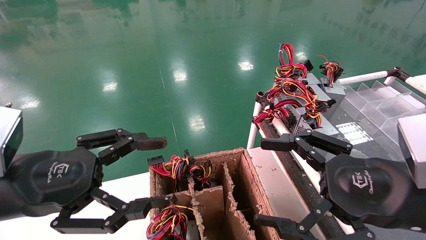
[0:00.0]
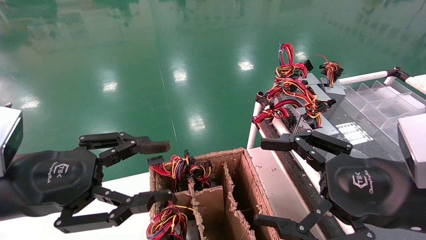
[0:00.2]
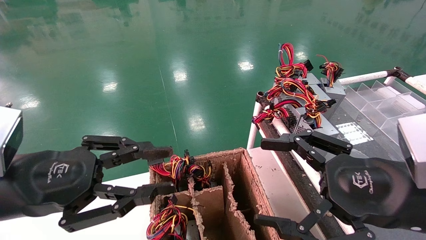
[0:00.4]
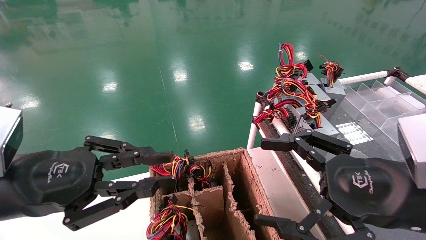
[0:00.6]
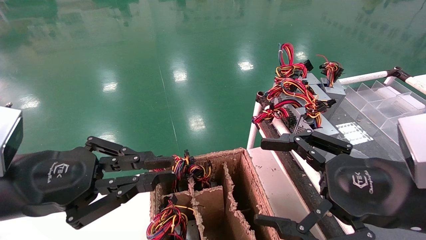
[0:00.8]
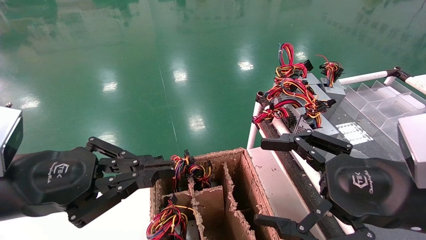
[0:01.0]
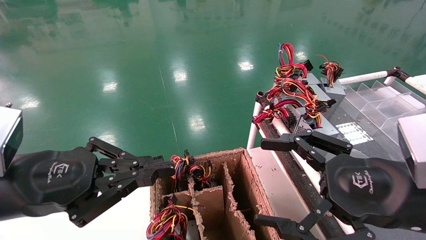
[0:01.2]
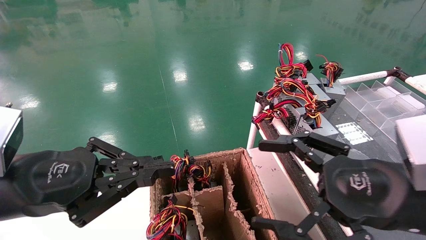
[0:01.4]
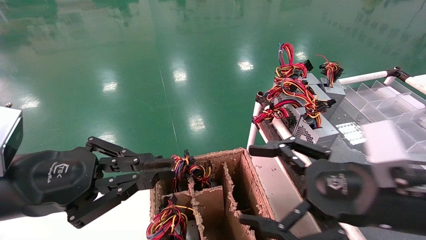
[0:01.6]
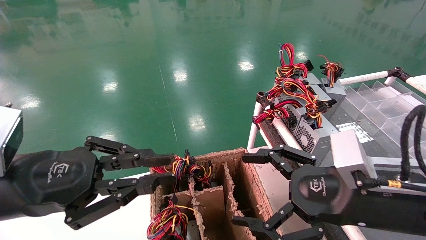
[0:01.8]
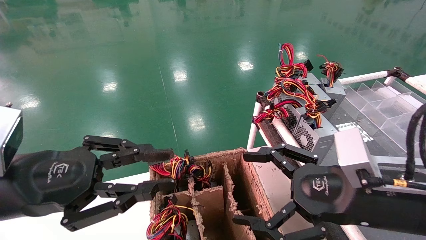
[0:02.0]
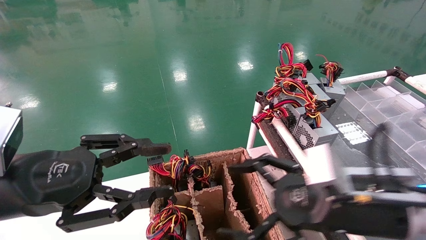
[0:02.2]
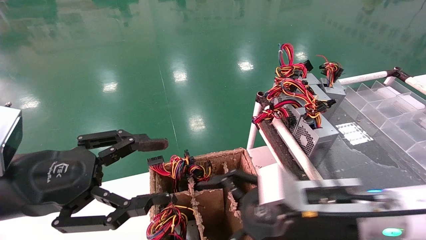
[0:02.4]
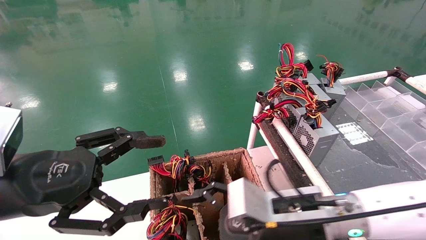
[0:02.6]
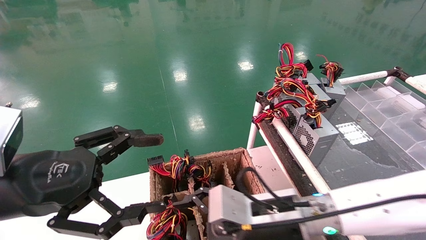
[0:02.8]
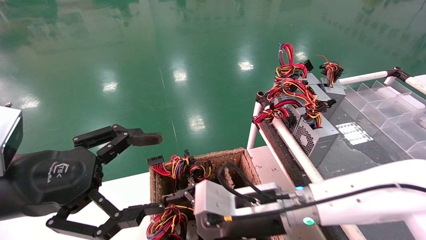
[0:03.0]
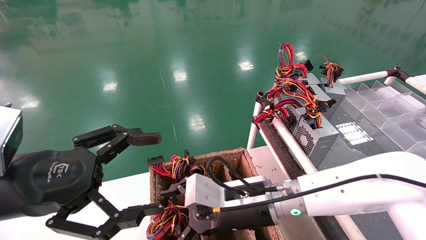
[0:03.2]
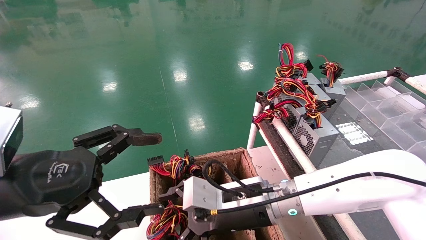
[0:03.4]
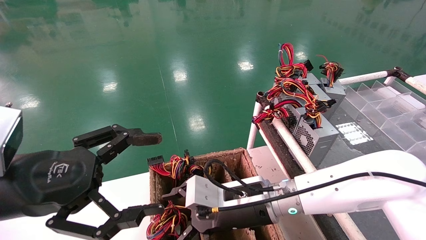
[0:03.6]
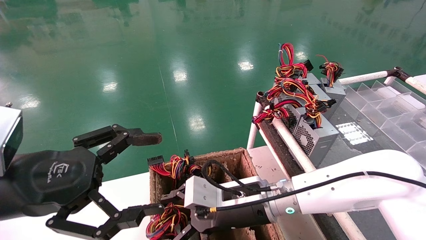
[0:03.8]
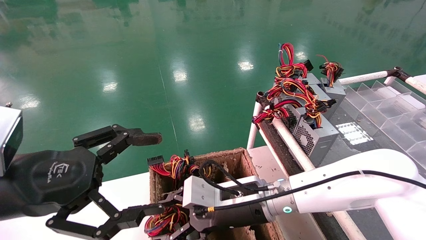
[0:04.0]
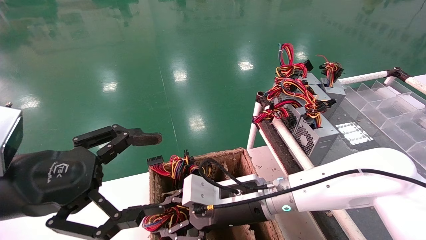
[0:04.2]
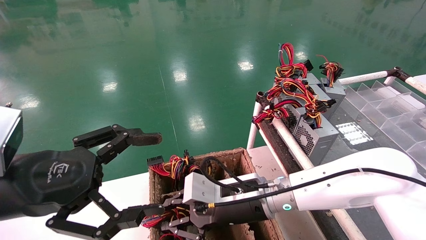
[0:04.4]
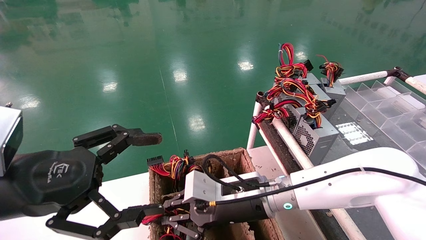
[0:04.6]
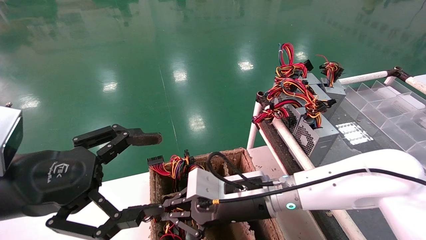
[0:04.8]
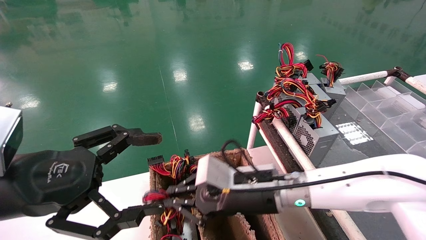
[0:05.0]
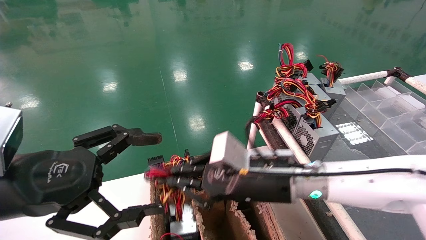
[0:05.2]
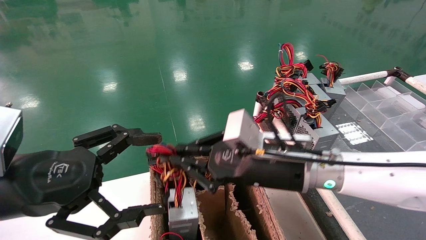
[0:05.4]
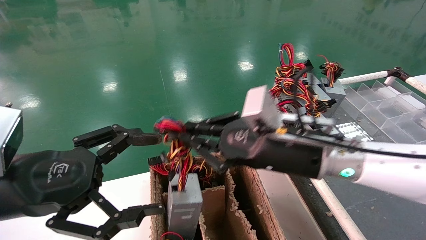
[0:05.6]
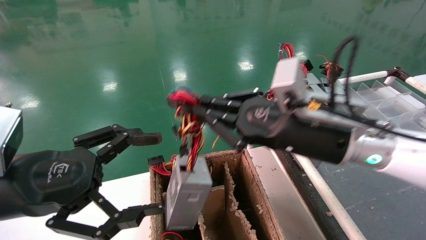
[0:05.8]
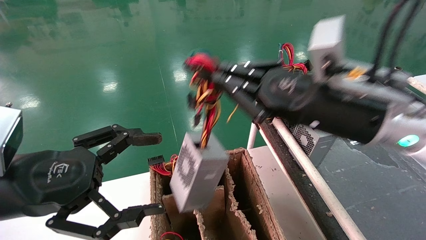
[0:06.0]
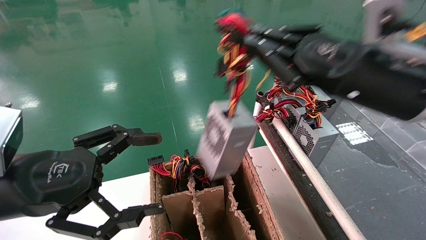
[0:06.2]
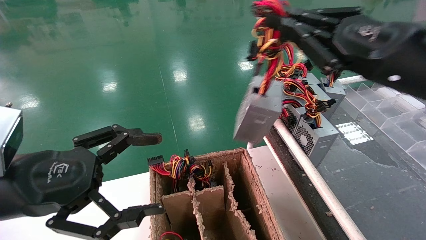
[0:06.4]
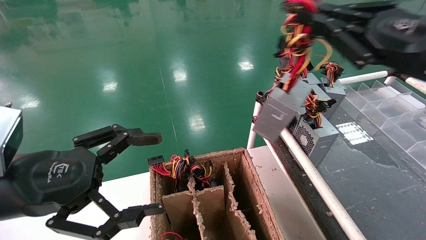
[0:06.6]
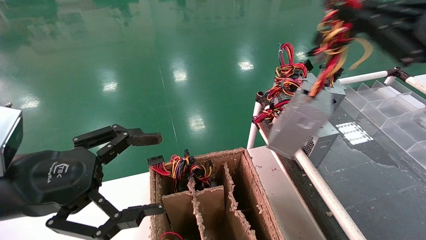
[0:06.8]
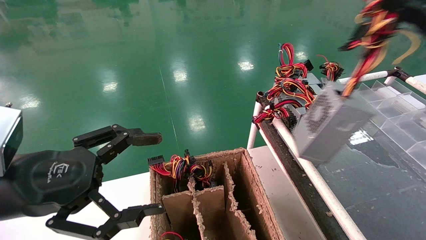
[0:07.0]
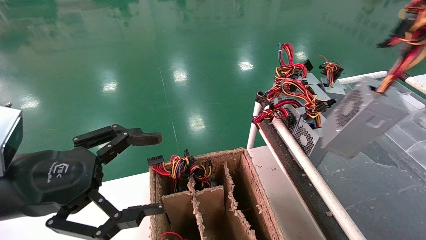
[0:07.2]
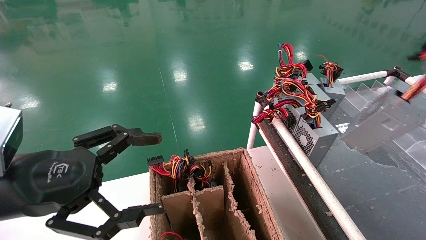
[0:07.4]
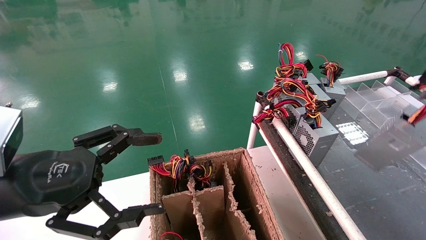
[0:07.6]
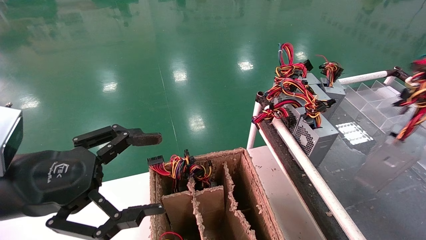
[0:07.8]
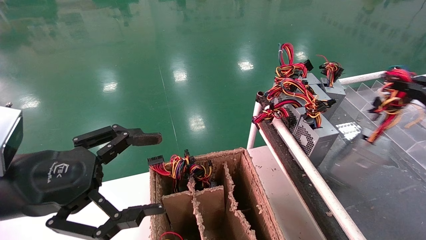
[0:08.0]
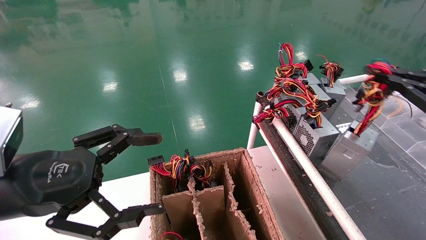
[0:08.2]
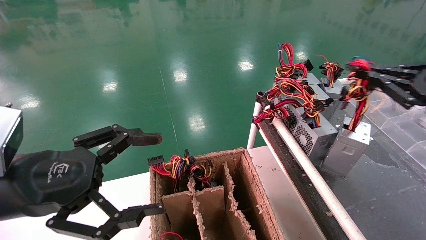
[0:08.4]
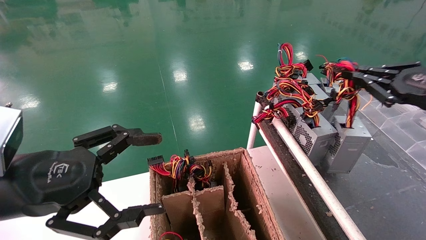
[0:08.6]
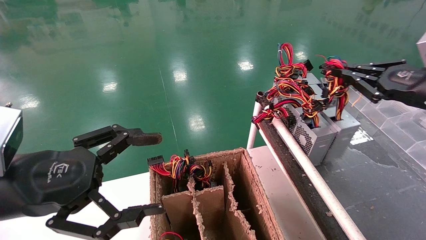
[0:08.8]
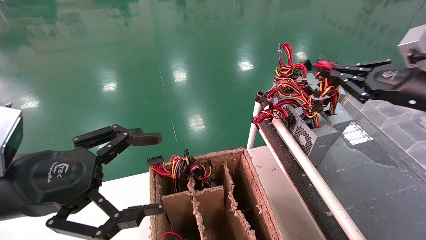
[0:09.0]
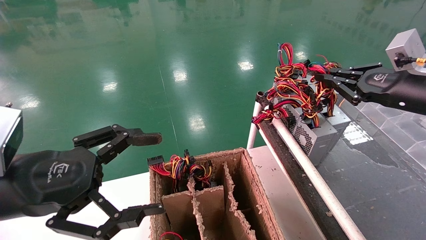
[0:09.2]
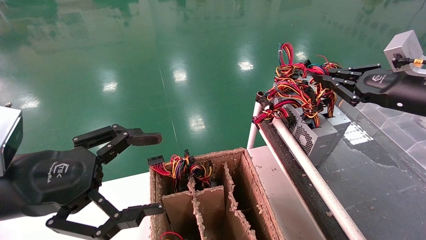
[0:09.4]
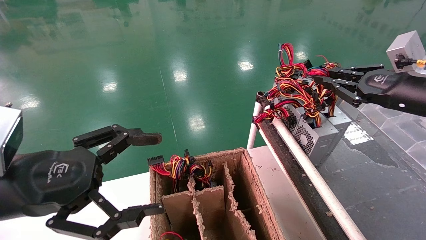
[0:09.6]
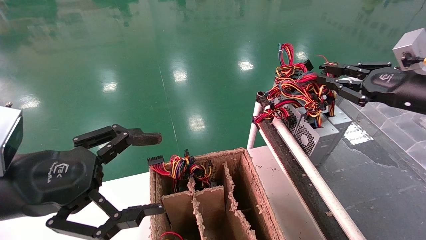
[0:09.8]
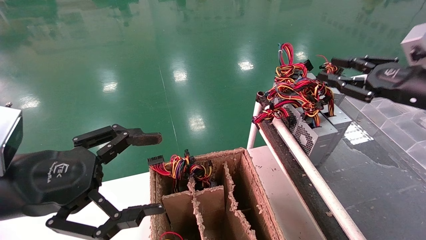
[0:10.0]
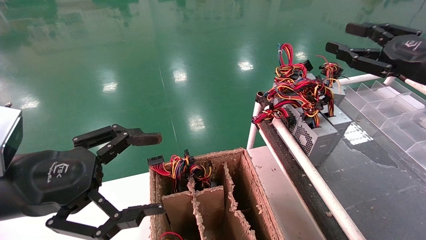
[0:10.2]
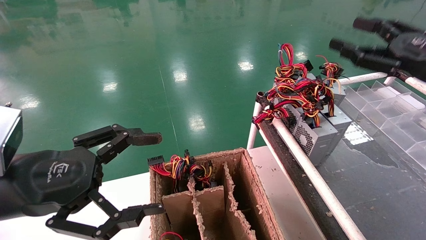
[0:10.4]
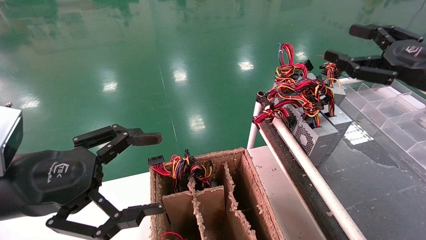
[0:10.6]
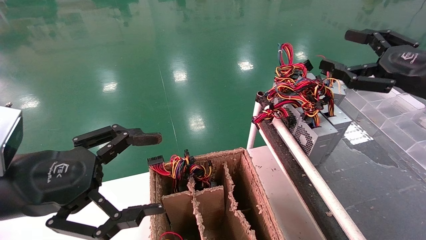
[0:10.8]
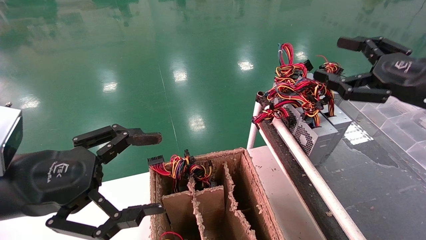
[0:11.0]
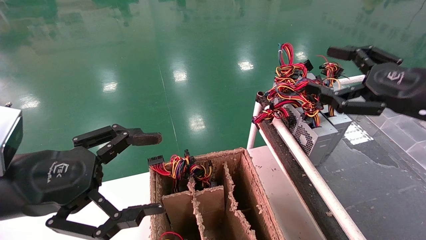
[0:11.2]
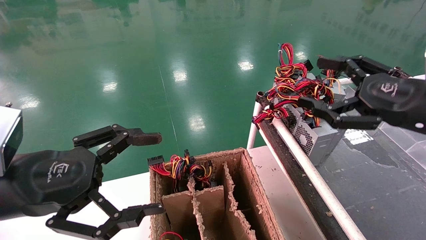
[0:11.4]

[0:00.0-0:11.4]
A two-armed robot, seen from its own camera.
Step, 1.0 to 4.8 s: Grab and lift the power supply from the large box.
Step, 5.0 to 9.4 s: Place the power supply on the operating table.
0.0 to 1.4 s: The left gripper closes.
1.4 to 2.8 s: The left gripper opens; the right gripper heads to the left, downward and forward, covering some 20 cm.
2.8 to 4.2 s: The right gripper shifts by some 5 cm, and closes up.
4.2 to 5.6 s: The right gripper goes roughly 15 cm upward and to the right, and closes.
5.6 to 7.2 s: The right gripper is displaced to the right by roughly 30 cm.
7.2 to 8.6 s: The right gripper shifts roughly 15 cm forward and downward.
8.6 to 10.0 s: The grippers stay close to where they were, moving slightly.
10.0 to 11.4 s: The right gripper travels backward and to the left by some 10 cm, and opens.

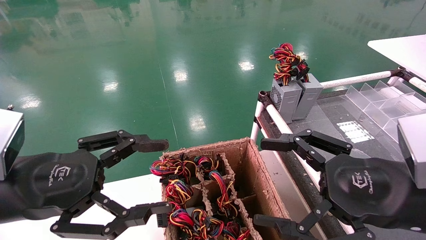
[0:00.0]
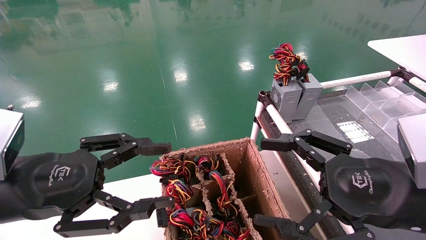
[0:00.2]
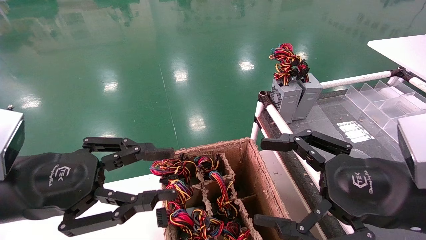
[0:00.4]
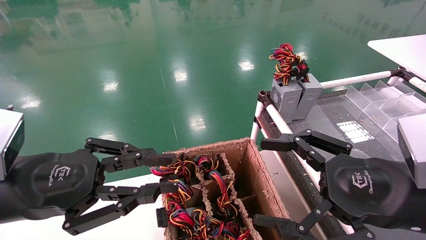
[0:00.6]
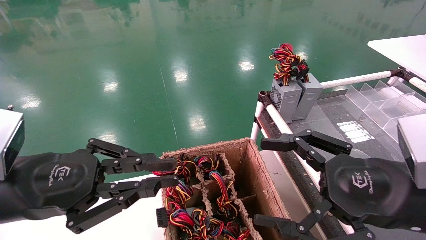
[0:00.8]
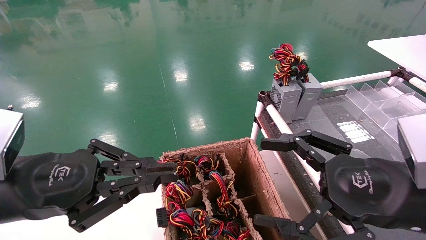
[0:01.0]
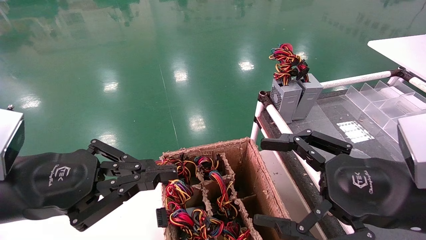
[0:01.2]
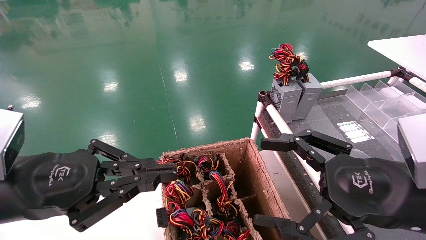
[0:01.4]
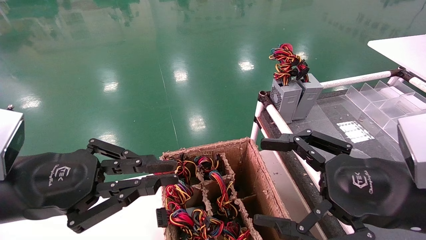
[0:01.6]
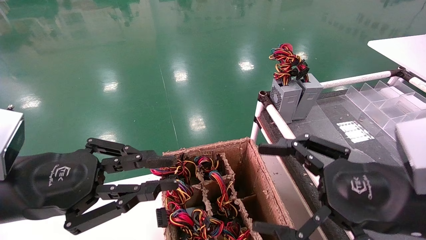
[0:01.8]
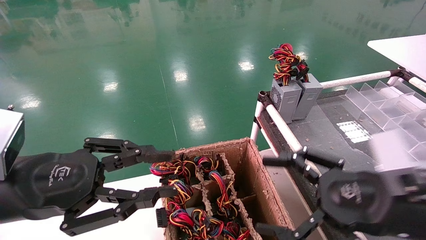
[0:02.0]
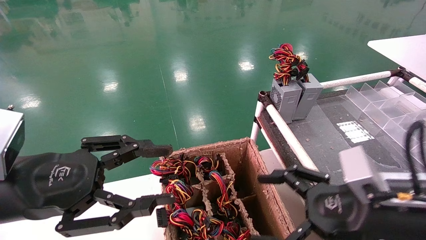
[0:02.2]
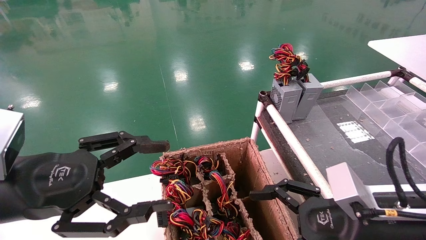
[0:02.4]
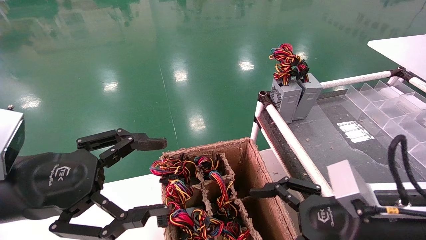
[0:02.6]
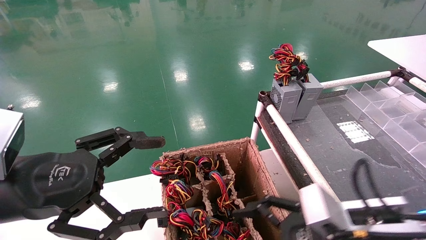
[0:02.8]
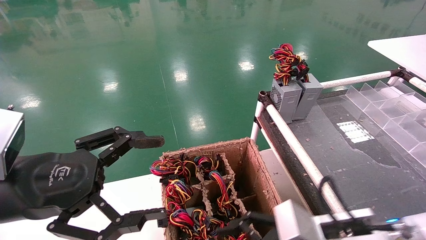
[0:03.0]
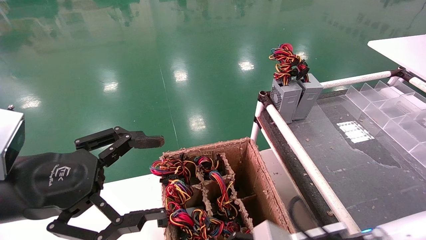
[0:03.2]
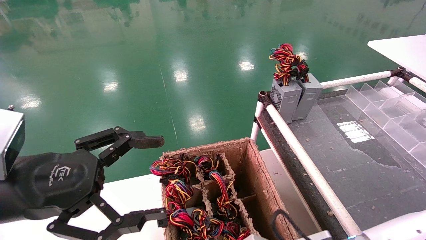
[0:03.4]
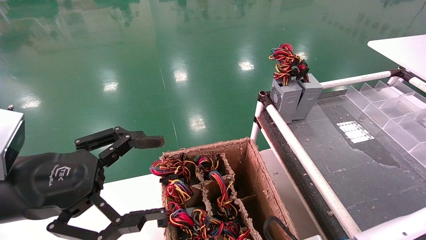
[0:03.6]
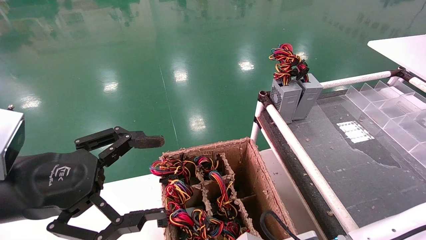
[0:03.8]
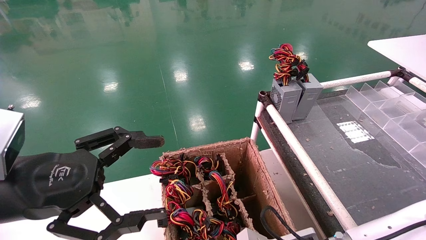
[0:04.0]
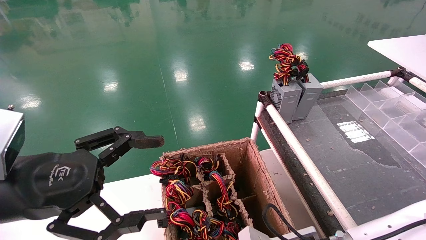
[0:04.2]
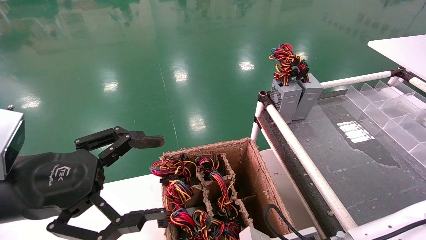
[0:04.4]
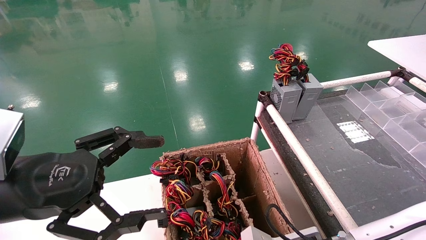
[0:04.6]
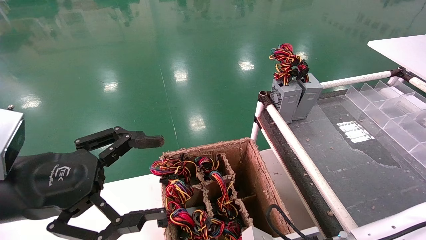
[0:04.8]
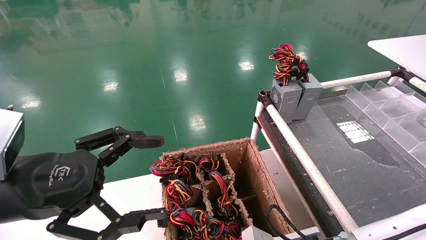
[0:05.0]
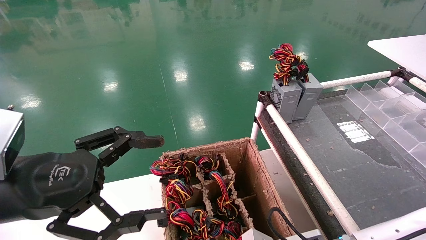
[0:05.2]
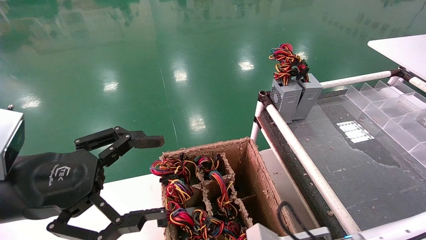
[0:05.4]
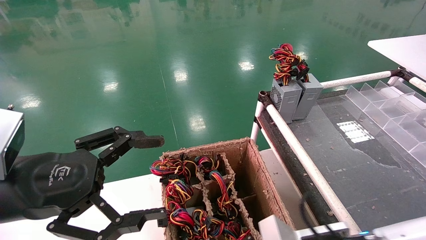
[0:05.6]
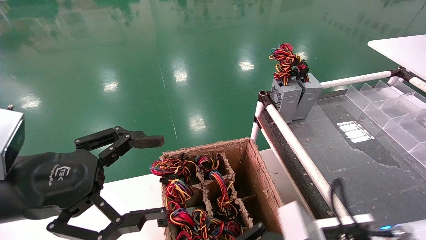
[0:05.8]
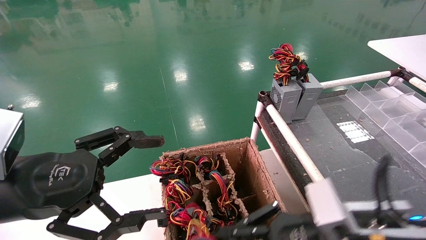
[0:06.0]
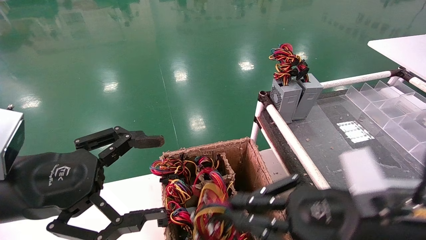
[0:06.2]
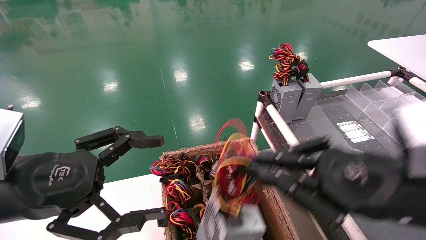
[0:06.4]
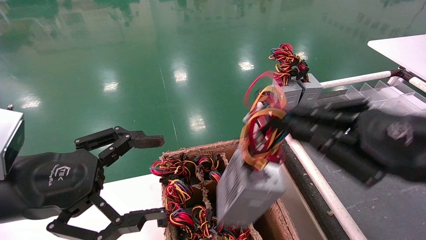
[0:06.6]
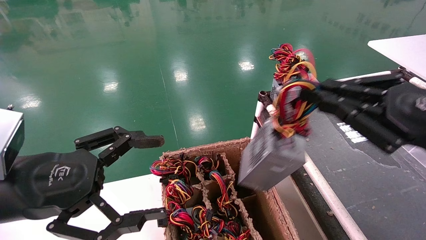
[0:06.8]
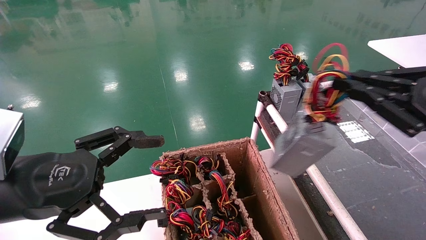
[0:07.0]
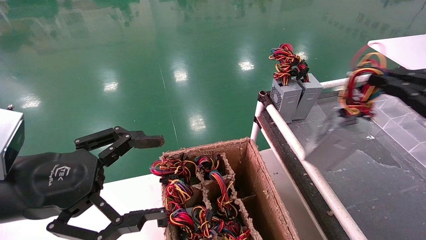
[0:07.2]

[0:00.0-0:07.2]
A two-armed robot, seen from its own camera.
Step, 1.2 to 5.2 s: Grab and lift the power supply from the large box.
0.0 to 1.4 s: The left gripper closes.
1.4 to 2.8 s: The left gripper opens its fingers. The right gripper travels downward by some 10 cm.
2.8 to 4.4 s: The right gripper shifts about 10 cm downward and to the left, and closes up.
4.4 to 5.8 s: The right gripper is displaced upward by roughly 5 cm, and closes its fingers.
5.8 to 7.2 s: The right gripper goes roughly 30 cm to the right and upward.
